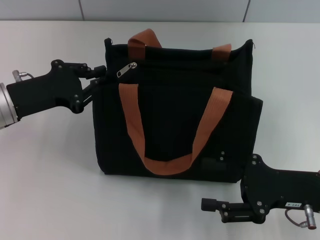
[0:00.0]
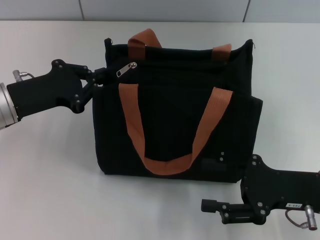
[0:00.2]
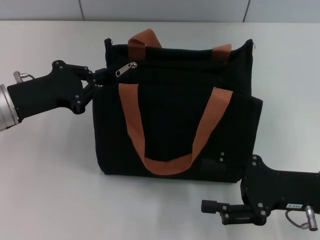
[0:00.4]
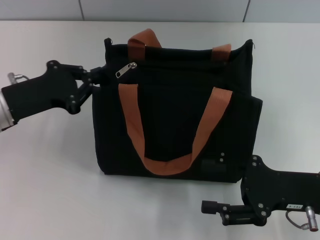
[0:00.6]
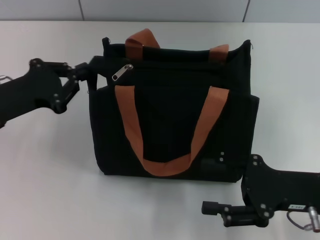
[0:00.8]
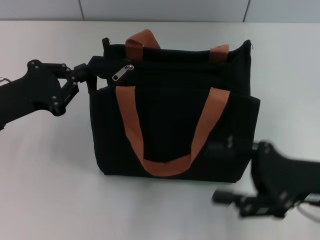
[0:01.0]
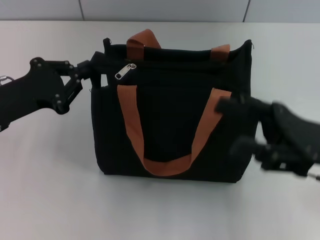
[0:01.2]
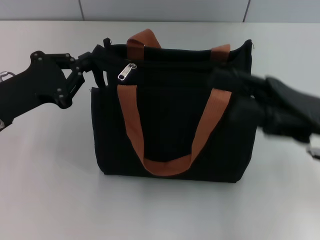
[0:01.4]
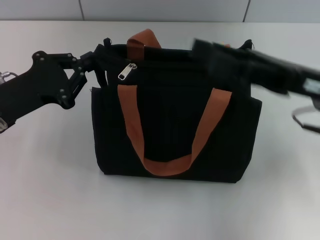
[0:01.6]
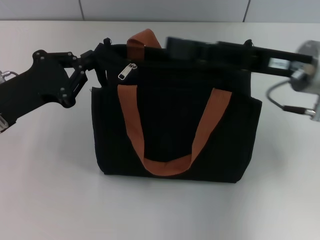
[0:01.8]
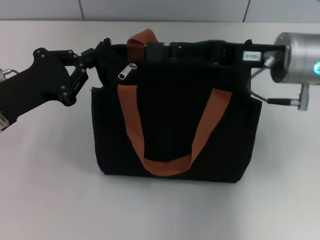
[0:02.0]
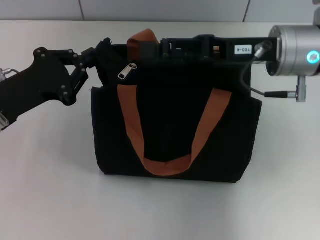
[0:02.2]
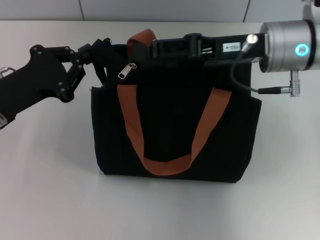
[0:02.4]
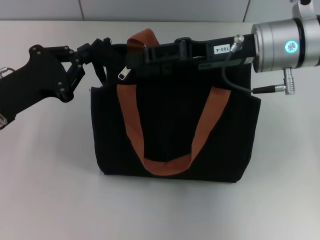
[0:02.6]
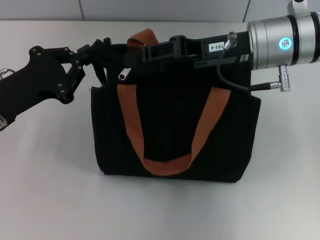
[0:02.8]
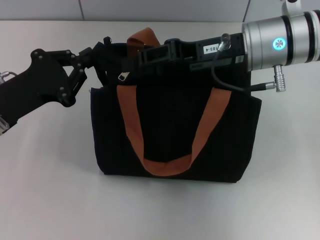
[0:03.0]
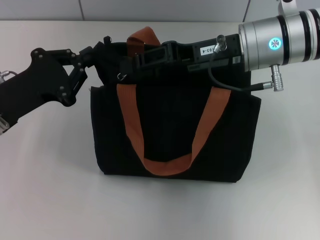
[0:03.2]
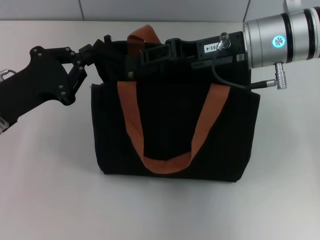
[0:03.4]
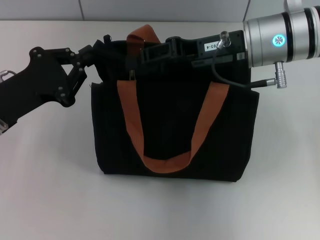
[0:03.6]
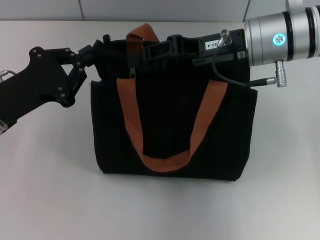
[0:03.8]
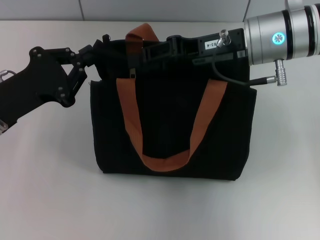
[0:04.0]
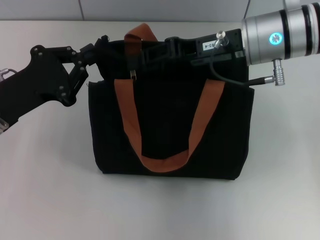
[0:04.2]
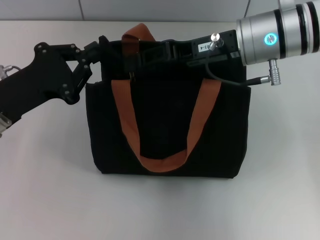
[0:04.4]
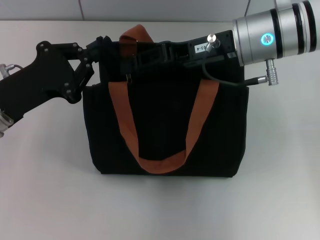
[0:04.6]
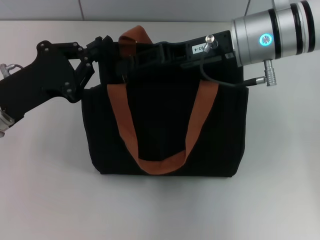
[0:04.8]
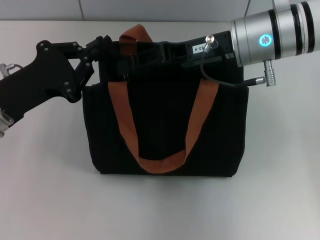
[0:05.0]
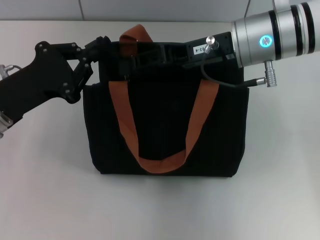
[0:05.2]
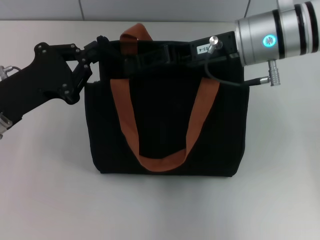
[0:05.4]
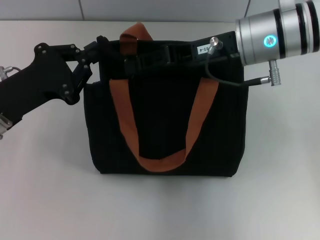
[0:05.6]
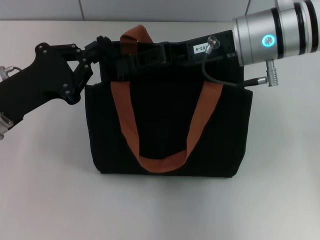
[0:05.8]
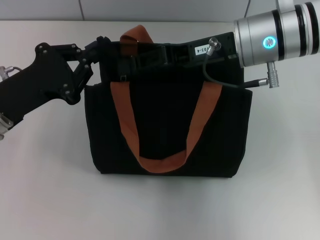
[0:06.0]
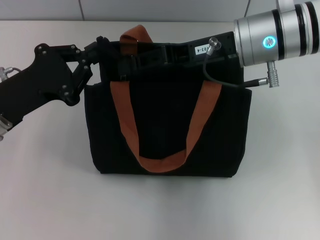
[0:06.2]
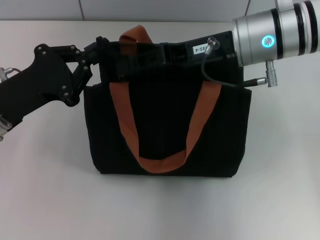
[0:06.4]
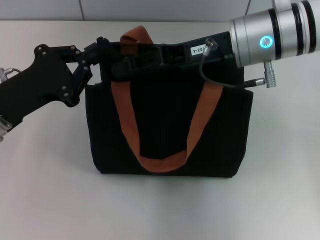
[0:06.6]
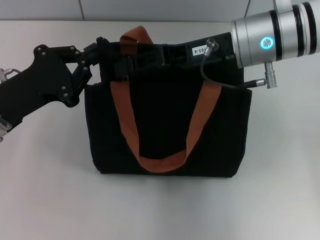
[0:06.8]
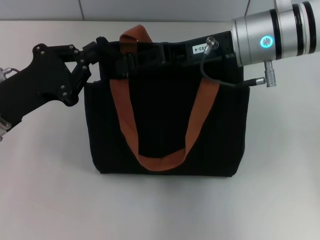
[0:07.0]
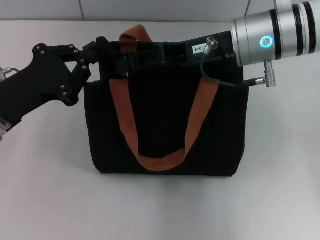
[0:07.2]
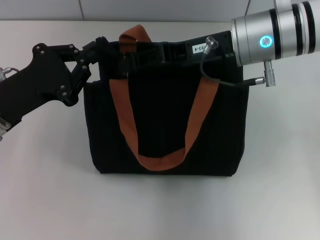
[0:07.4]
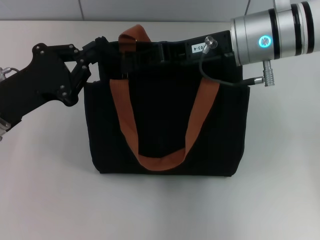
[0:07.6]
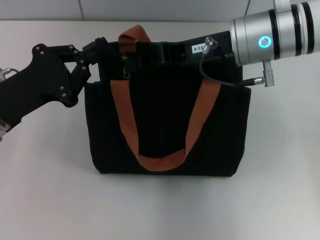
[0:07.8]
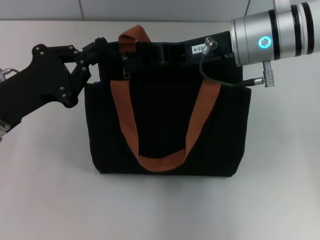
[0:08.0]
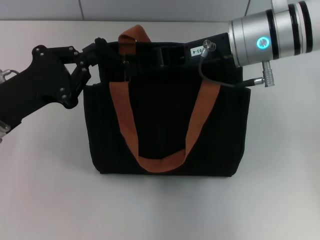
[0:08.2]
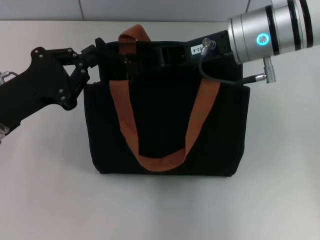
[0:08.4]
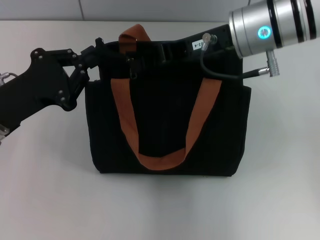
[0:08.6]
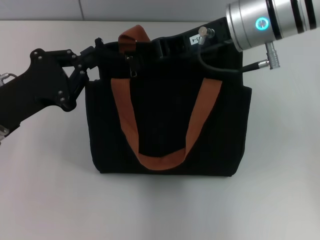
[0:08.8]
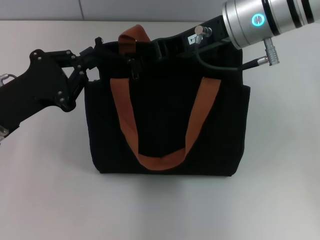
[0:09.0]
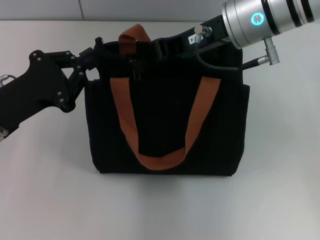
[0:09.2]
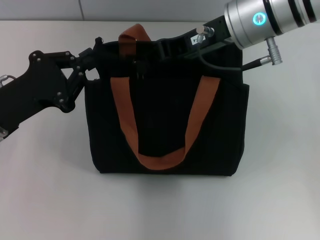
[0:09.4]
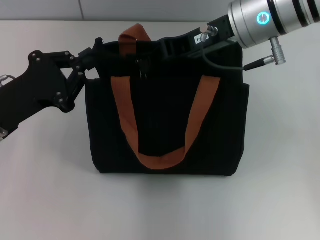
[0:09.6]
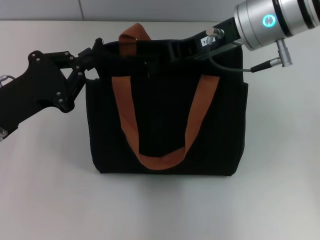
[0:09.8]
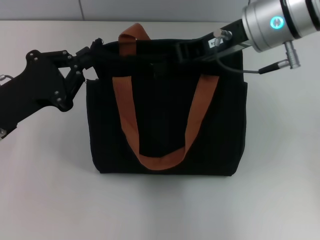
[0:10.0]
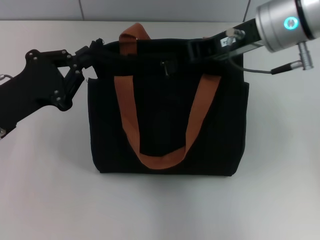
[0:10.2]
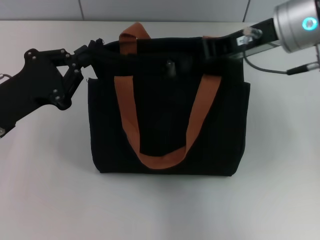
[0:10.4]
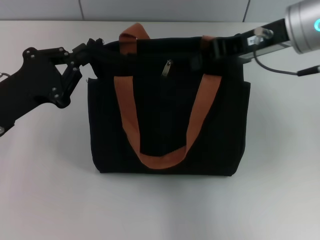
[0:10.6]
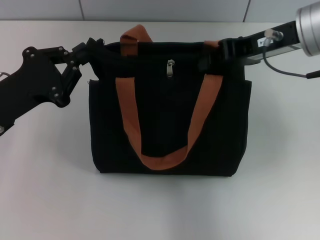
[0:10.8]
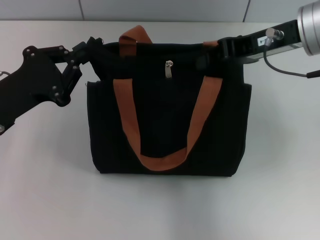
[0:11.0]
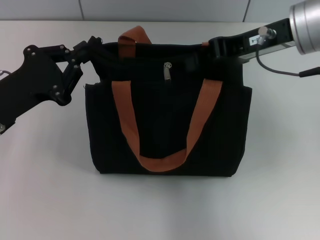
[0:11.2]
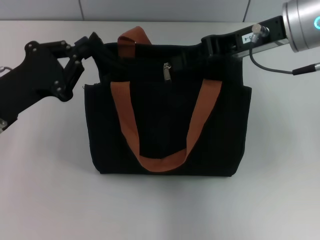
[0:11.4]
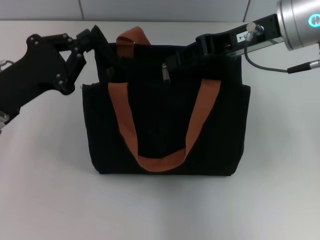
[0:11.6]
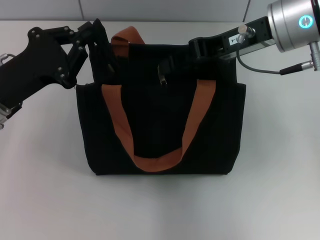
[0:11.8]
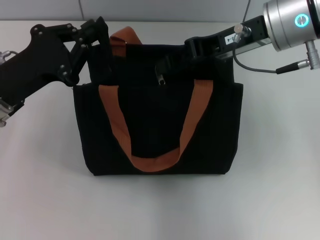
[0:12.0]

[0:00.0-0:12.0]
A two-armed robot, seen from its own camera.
0:00.0 to 0:01.6: The left gripper closes; the right gripper heads upward and forward, covering roughly 10 cm.
0:01.6 to 0:03.0: The right gripper moves to the left and forward, roughly 10 cm.
0:03.0 to 0:06.0: The grippers make only small movements.
0:06.0 to 0:07.6: The two grippers keep their place.
0:07.6 to 0:09.0: The right gripper closes.
0:09.0 to 0:10.4: The right gripper is displaced to the right by approximately 5 cm.
0:10.4 to 0:12.0: The right gripper opens up.

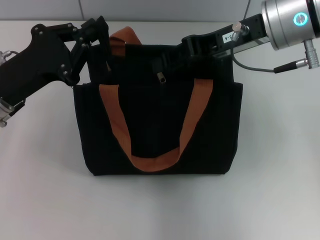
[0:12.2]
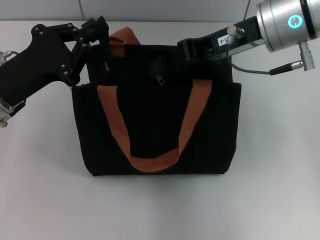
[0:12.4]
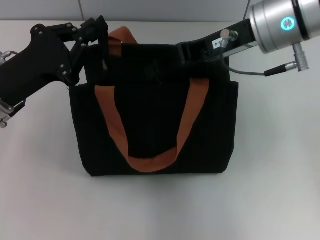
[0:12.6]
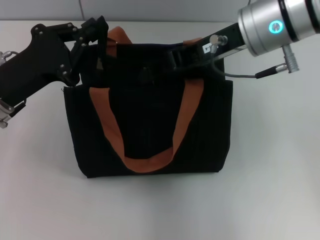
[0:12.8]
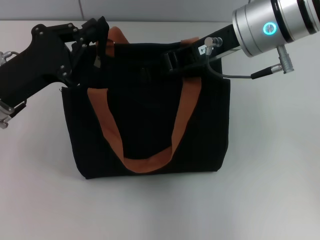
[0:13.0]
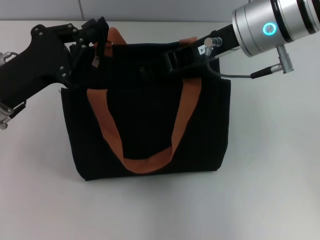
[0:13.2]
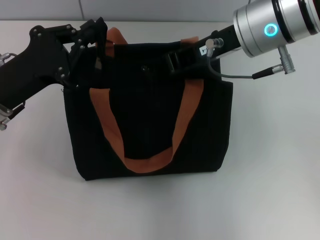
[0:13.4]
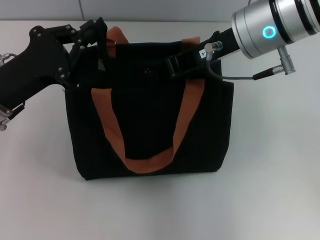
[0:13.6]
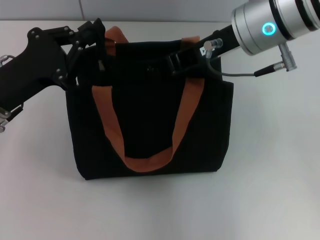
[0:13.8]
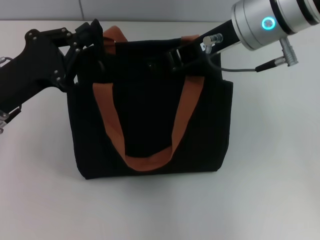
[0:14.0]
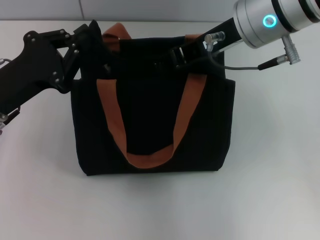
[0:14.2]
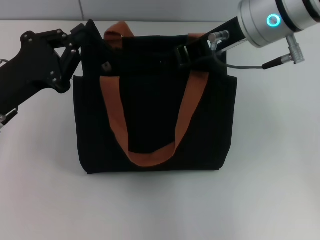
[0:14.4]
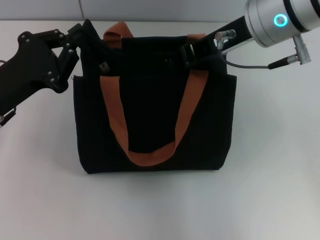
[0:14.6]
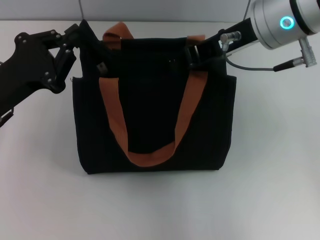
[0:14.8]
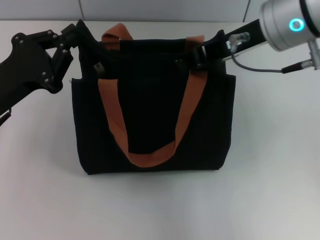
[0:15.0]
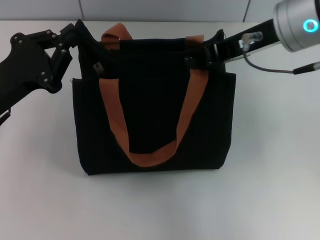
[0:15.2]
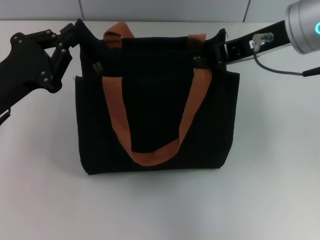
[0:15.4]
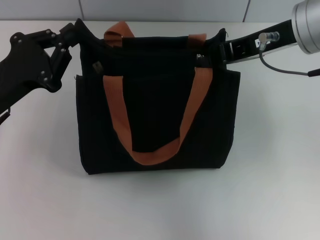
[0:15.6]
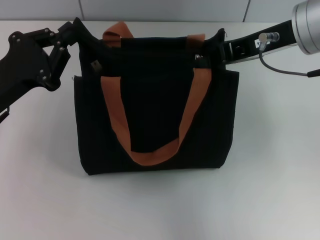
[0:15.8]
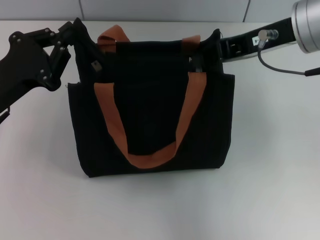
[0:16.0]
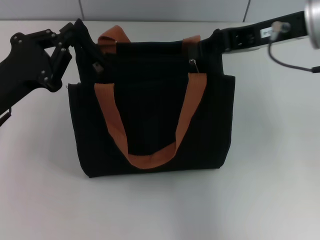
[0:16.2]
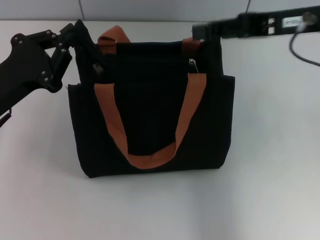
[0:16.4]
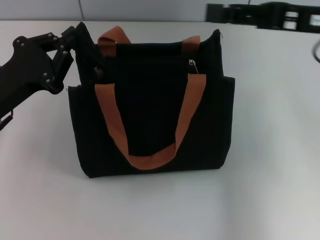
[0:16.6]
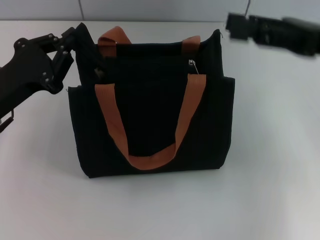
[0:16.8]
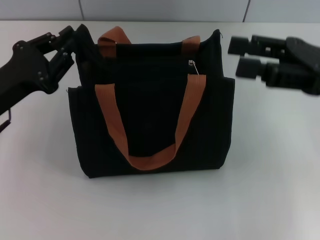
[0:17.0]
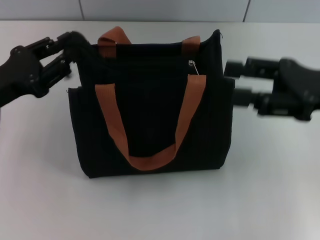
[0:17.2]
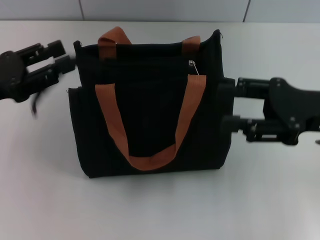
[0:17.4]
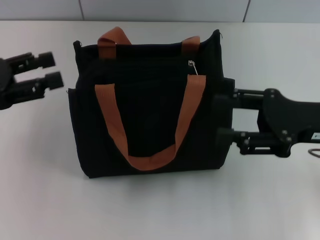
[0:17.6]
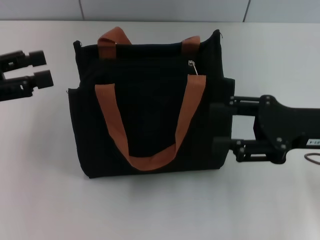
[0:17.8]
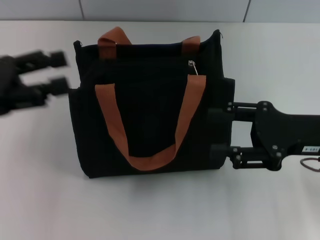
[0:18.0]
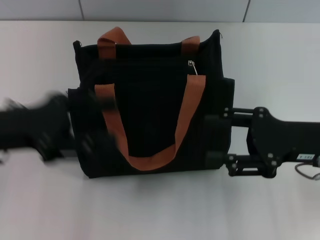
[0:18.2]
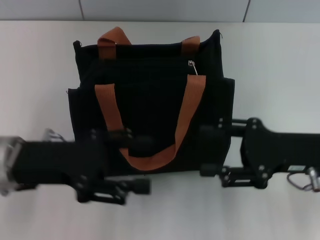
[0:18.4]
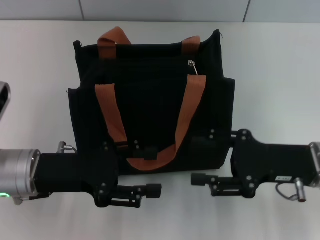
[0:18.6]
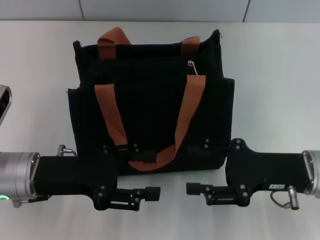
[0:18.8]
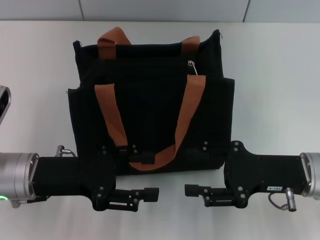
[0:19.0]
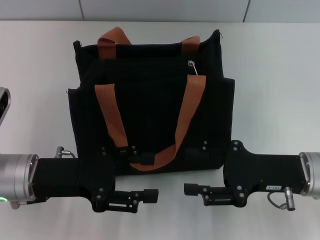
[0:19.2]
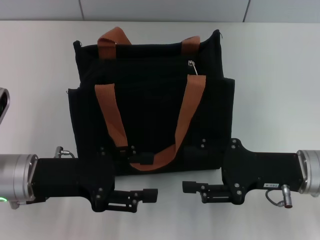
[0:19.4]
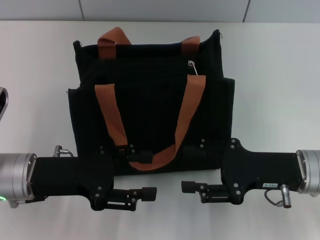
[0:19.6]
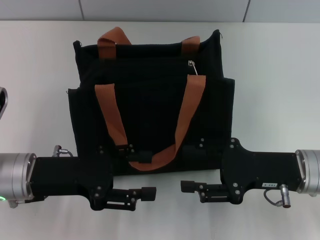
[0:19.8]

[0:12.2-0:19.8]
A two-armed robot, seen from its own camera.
Step, 0:12.2 to 0:16.0: Pull up the zipper with your right hand.
Step, 0:16.2 to 0:17.4: Grab the zipper with your left hand.
0:12.2 to 0:13.8: The right gripper closes its fingers.
0:13.8 to 0:15.2: There are only small adjustments of the grippers.
0:15.2 to 0:16.8: The right gripper moves to the right, approximately 10 cm, and opens its fingers.
0:16.8 to 0:18.2: The left gripper opens its fingers, while the right gripper moves downward, roughly 10 cm.
0:18.2 to 0:19.8: The left gripper is displaced downward and to the right by about 10 cm; the right gripper shifts by some 5 cm.

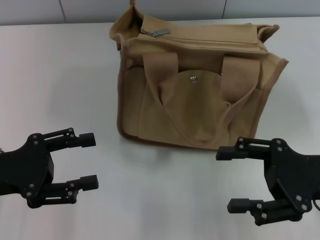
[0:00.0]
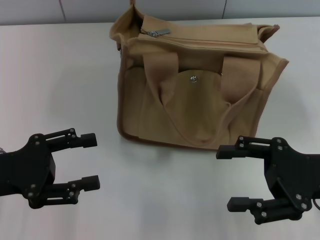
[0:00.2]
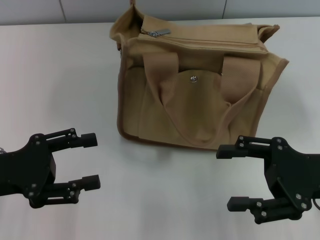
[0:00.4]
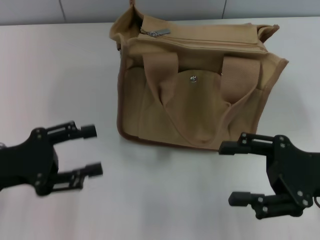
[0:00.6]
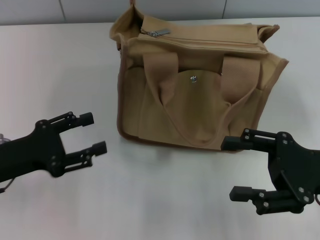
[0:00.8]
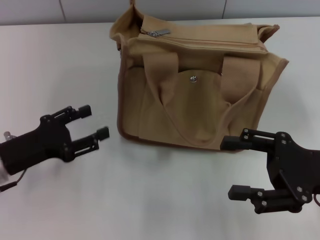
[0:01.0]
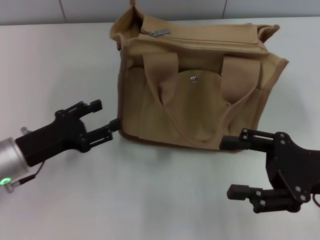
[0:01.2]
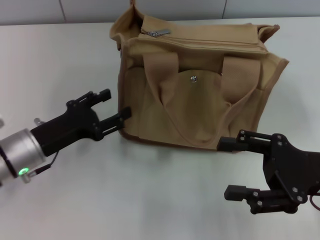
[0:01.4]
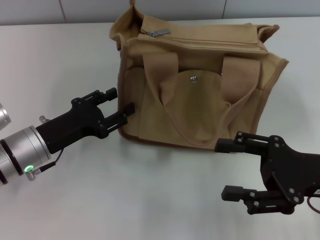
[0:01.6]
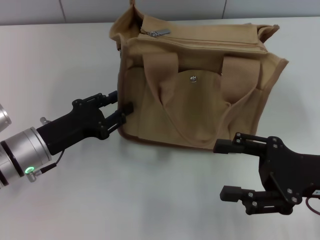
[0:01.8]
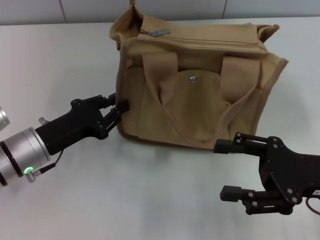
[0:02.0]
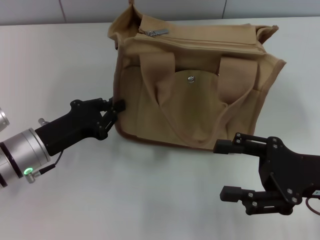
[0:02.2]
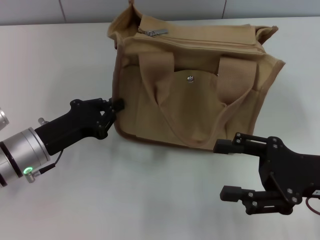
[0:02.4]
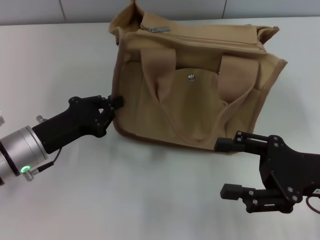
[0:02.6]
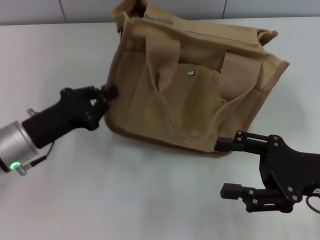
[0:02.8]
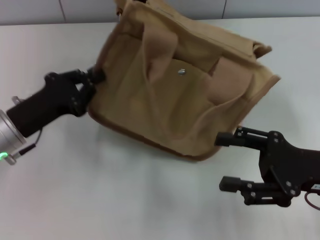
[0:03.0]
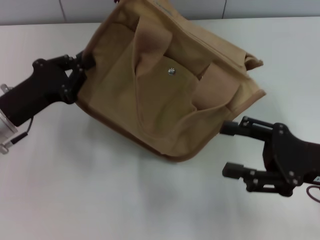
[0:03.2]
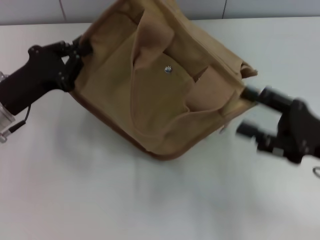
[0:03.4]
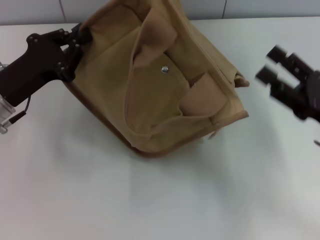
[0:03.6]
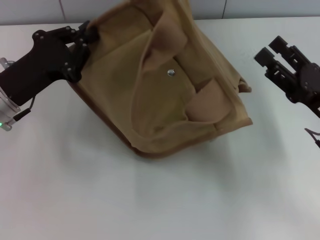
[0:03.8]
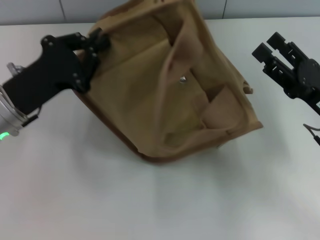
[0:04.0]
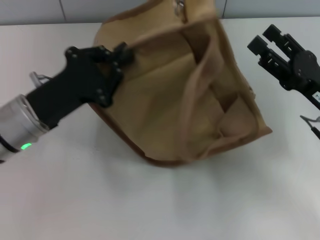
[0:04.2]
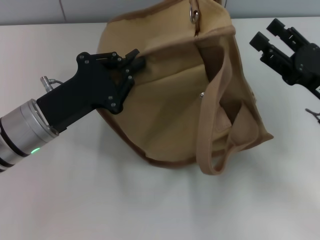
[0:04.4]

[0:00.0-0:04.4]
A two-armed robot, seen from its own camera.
0:00.0 to 0:01.4: The left gripper travels downward, to the right and forward by approximately 10 cm.
0:01.4 to 0:03.0: The left gripper closes.
0:03.0 to 0:04.4: The right gripper travels forward by about 5 cm; the left gripper is displaced to the right by approximately 5 cm.
